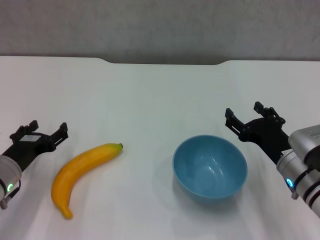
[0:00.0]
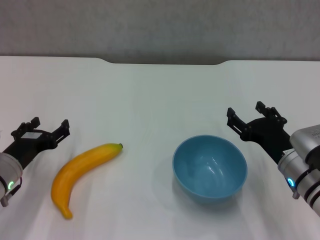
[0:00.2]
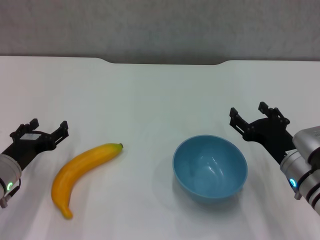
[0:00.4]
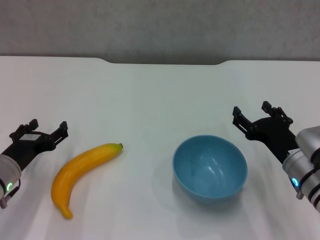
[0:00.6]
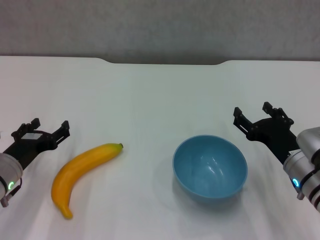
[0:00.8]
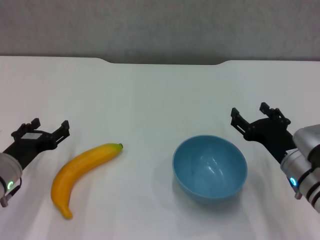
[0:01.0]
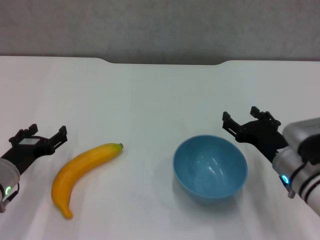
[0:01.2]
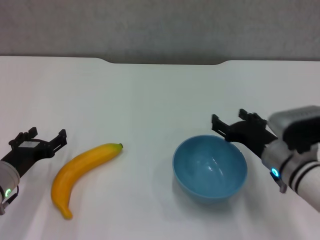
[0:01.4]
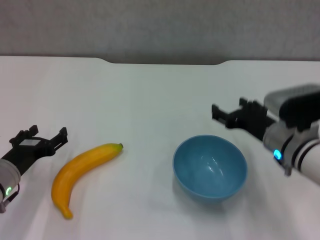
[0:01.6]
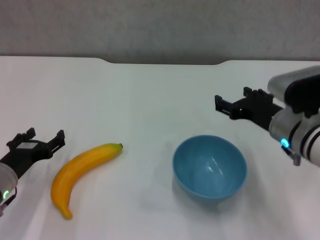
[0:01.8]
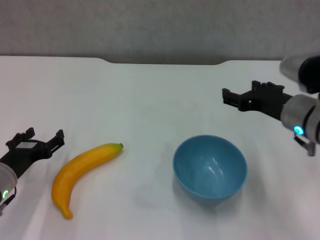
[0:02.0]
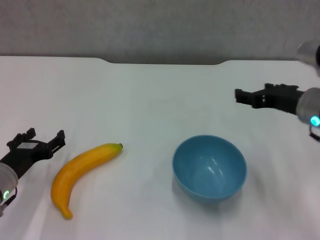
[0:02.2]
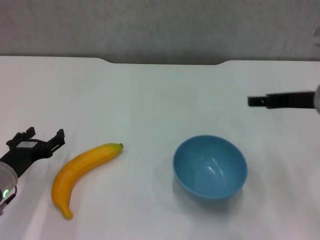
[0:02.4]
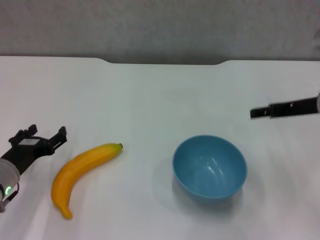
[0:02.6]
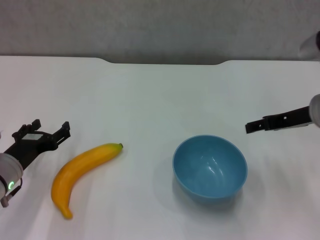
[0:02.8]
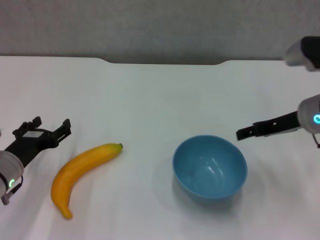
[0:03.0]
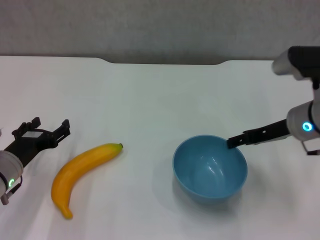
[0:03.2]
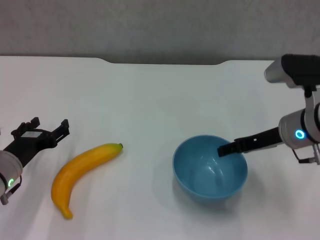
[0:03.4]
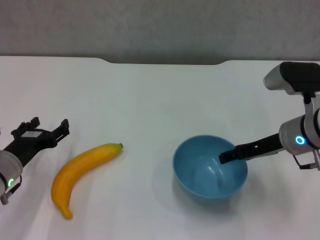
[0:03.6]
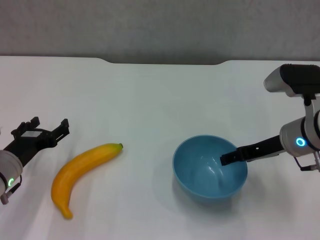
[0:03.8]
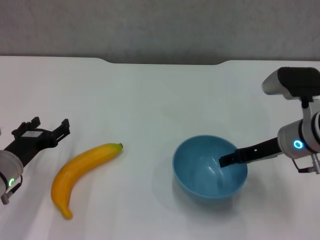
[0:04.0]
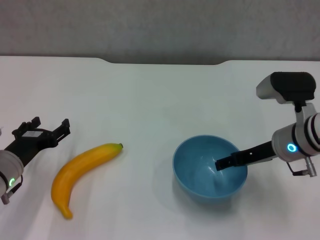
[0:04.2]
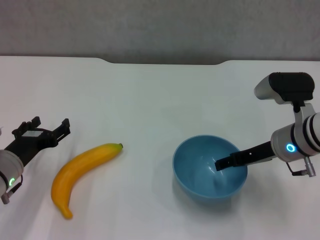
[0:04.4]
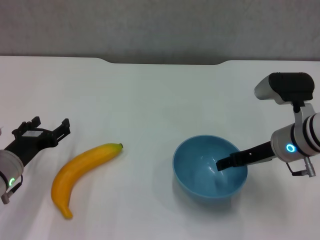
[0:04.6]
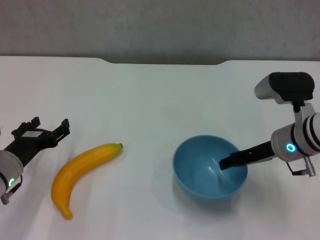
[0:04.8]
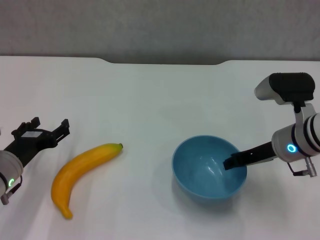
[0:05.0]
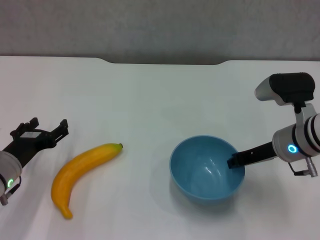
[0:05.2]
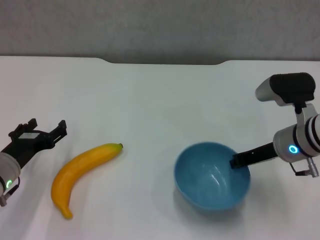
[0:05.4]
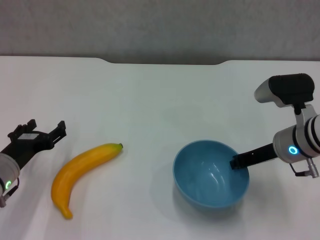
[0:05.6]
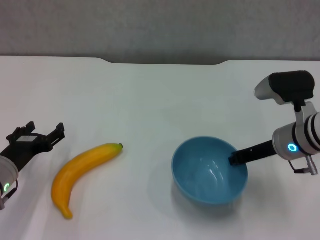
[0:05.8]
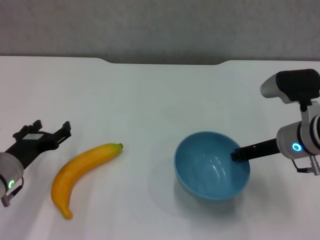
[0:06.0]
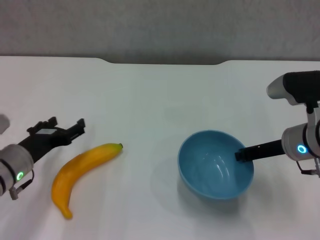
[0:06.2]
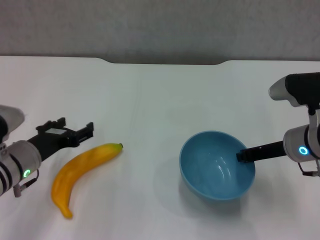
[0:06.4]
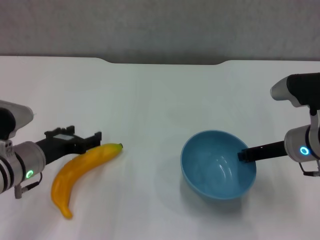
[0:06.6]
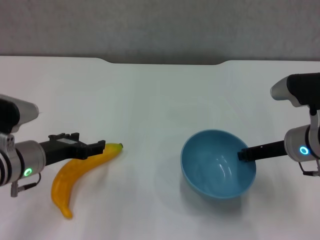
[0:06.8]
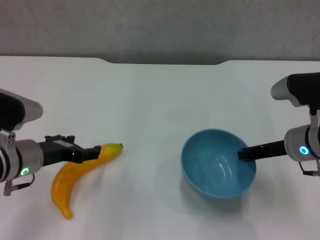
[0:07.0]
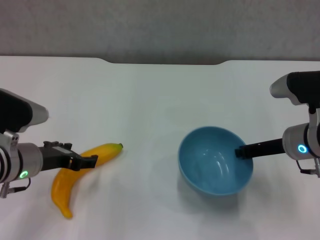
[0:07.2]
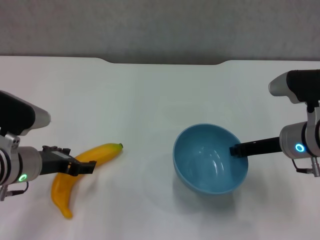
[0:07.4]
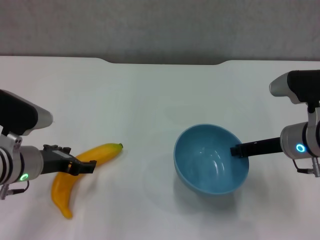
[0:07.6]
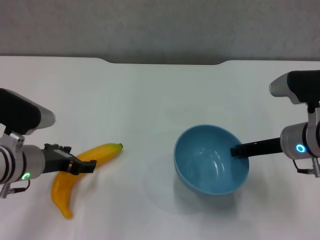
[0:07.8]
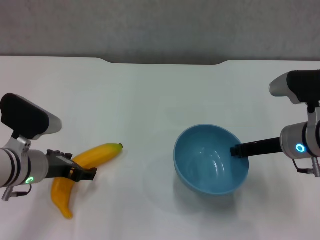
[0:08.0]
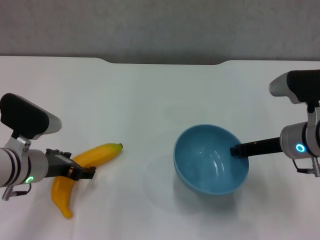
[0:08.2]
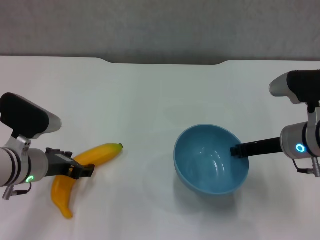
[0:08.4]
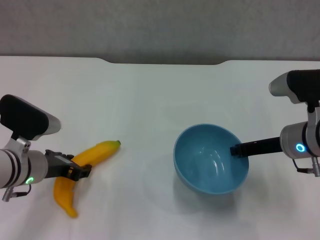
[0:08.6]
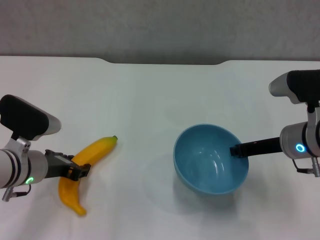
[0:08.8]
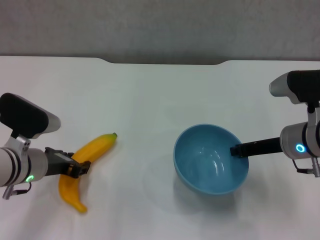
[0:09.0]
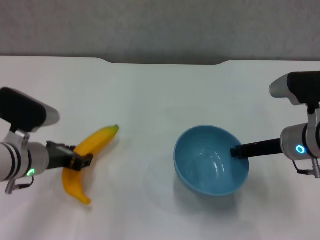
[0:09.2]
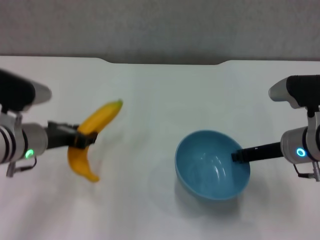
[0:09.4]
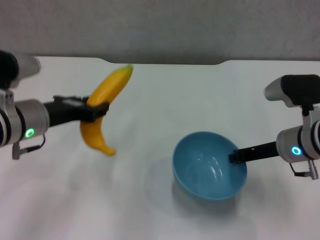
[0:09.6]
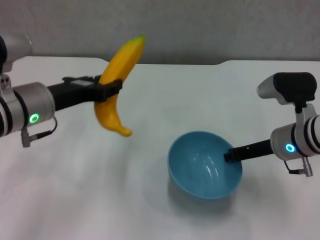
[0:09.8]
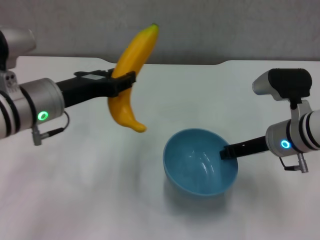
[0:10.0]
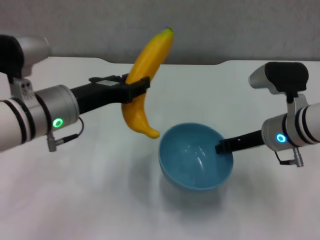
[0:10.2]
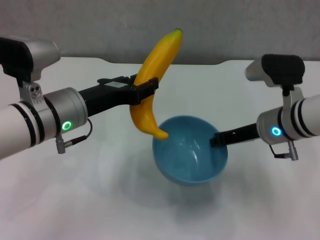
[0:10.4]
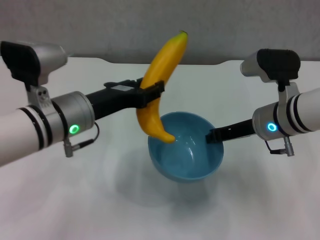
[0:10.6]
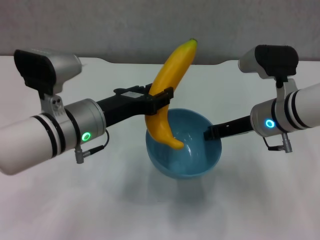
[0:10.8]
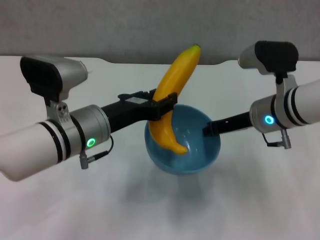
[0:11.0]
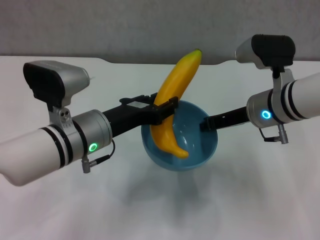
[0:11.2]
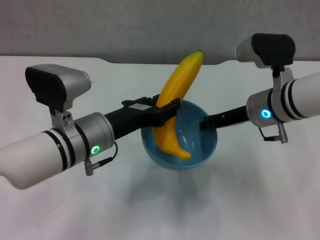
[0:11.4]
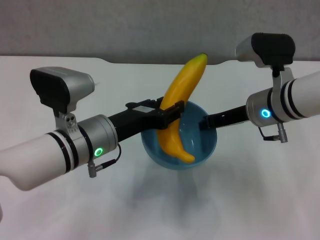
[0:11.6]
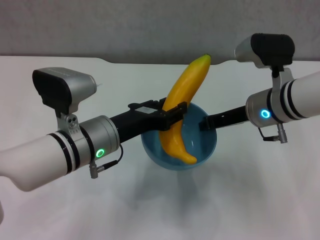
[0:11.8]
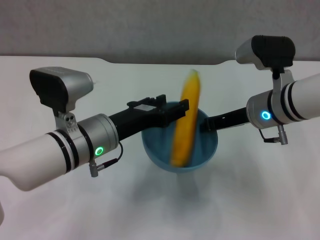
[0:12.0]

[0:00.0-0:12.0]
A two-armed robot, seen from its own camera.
Step, 0:00.0 to 0:05.6: Grasp the blue bowl with right gripper.
Step, 0:05.8 to 0:06.0: Lift the blue bowl with right gripper.
Step, 0:06.2 to 0:08.6: Grasp the banana with left gripper.
0:00.0 to 0:01.6: The right gripper moves approximately 5 cm.
0:01.6 to 0:03.0: The right gripper goes roughly 5 cm upward.
0:03.0 to 0:04.4: The right gripper moves downward, about 5 cm.
0:04.4 to 0:06.0: The right gripper closes its fingers.
0:06.0 to 0:07.6: The left gripper travels upward by some 5 cm.
0:07.6 to 0:09.0: The left gripper closes.
0:09.0 to 0:10.4: The left gripper heads upward and to the right, covering approximately 10 cm.
0:10.4 to 0:12.0: The left gripper ends up about 5 cm from where it was.

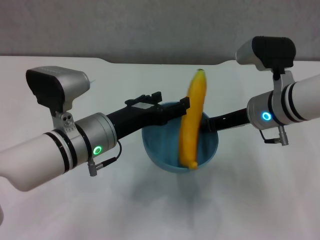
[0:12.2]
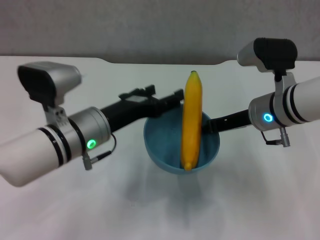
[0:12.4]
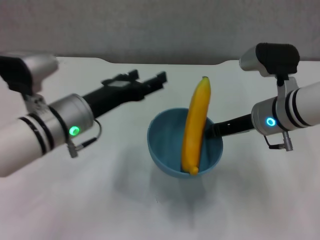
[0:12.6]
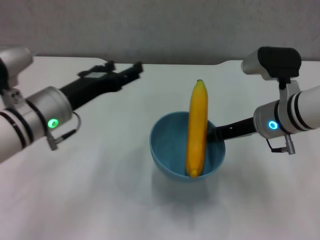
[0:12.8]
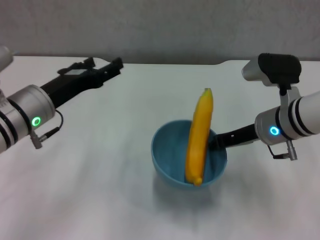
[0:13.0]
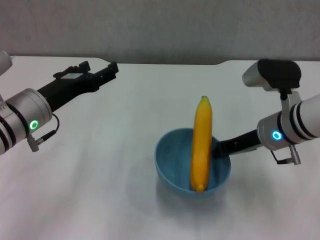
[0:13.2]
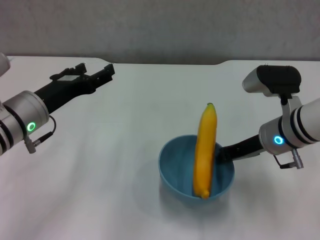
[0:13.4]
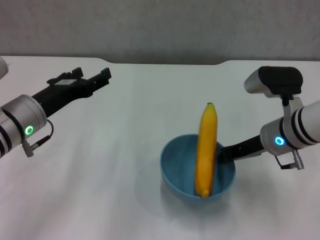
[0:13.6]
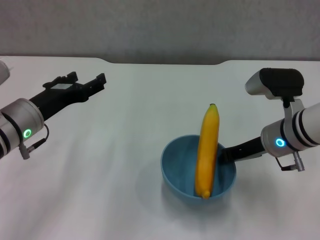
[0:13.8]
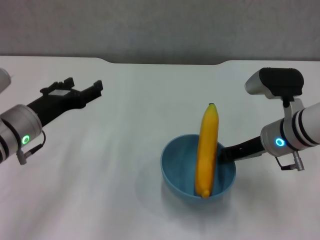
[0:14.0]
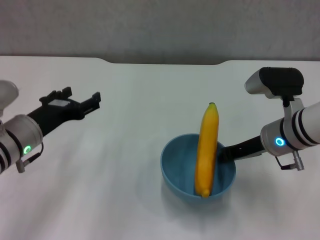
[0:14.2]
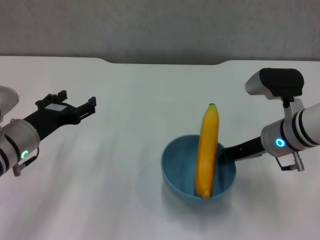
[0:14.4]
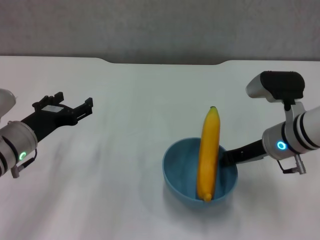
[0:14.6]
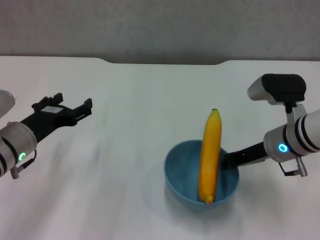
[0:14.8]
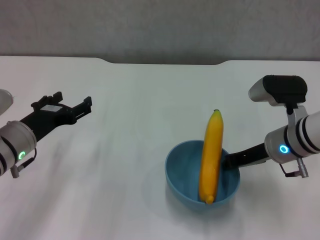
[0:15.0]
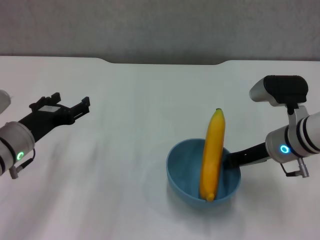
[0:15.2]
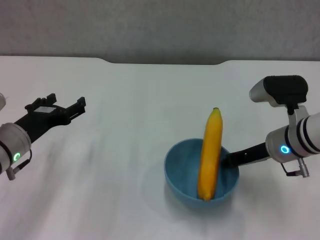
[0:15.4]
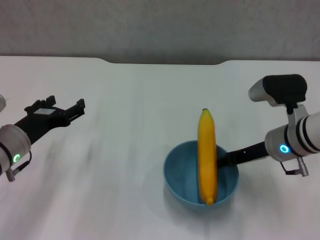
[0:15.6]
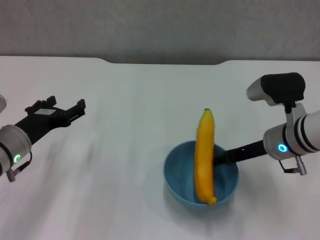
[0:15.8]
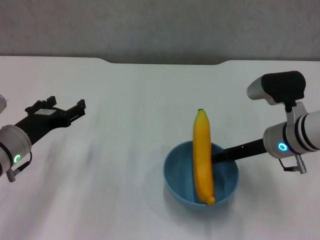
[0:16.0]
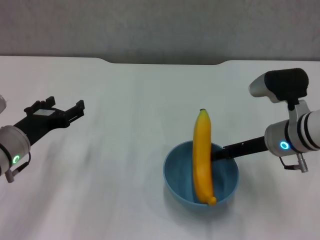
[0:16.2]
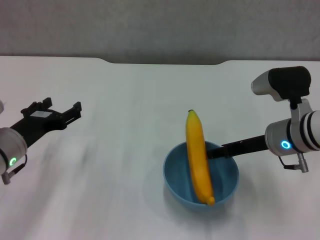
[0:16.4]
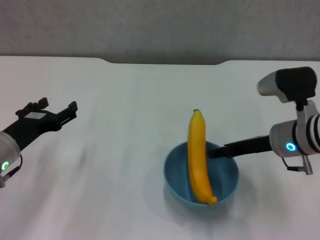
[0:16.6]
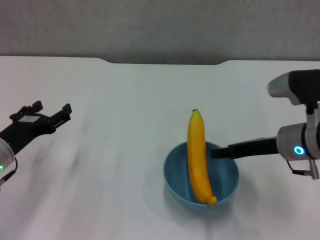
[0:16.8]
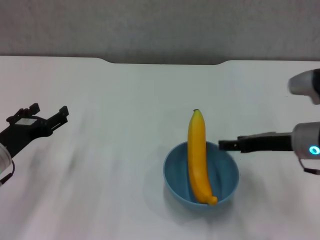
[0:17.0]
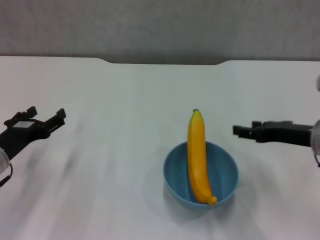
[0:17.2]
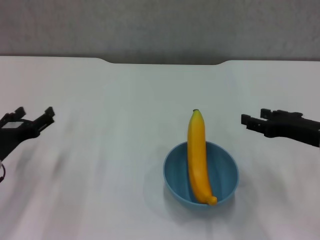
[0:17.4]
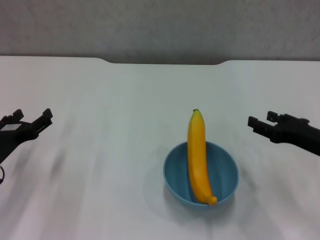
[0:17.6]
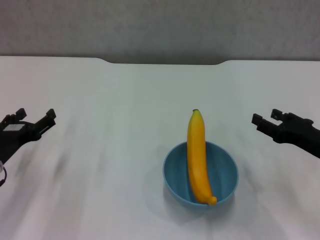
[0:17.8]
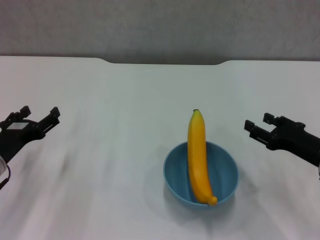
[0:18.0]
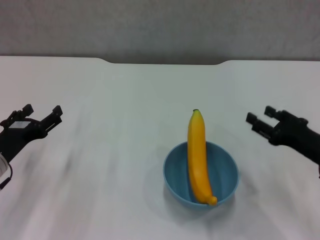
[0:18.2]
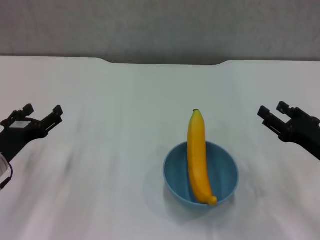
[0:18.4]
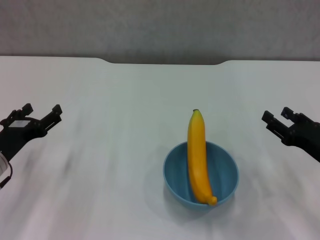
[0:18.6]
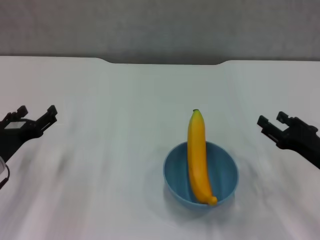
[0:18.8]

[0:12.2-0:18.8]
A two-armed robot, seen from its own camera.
Step, 0:12.6 to 0:16.8: Place the bowl on the table with right gripper.
0:12.2 to 0:13.8: The left gripper shifts some 10 cm to the left.
0:13.8 to 0:15.4: The grippers make only small movements.
0:15.4 to 0:17.2: The right gripper travels to the right by approximately 5 cm, and opens its fingers.
0:17.2 to 0:18.8: The right gripper shifts about 5 cm downward.
